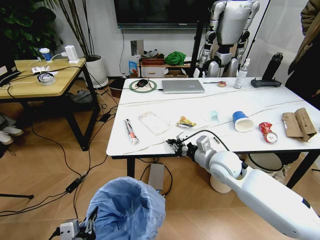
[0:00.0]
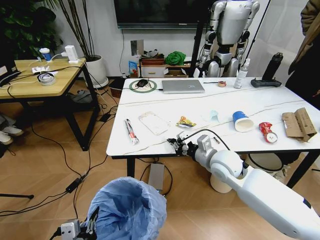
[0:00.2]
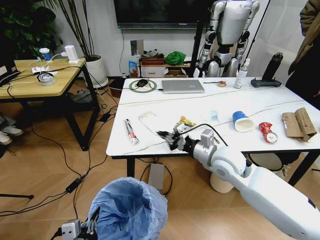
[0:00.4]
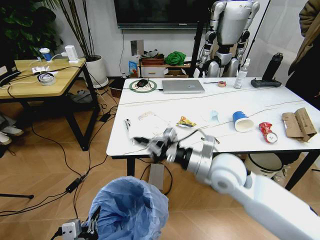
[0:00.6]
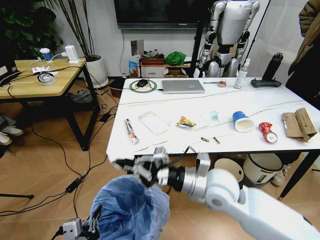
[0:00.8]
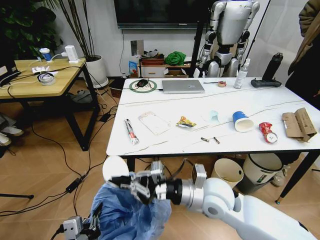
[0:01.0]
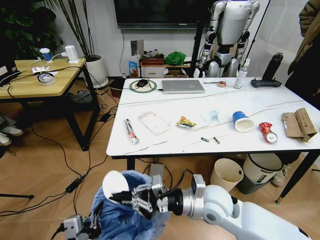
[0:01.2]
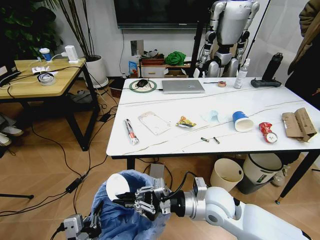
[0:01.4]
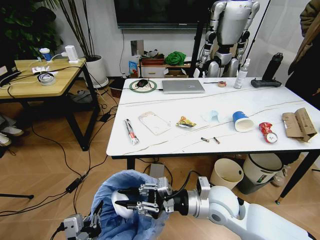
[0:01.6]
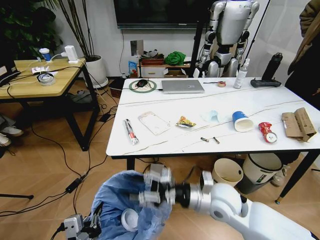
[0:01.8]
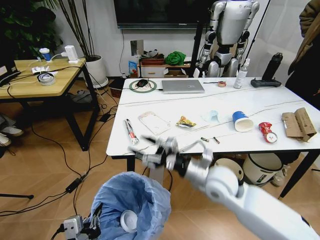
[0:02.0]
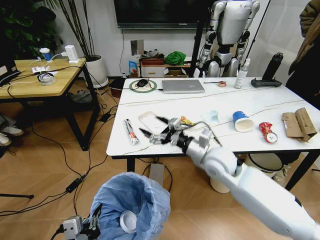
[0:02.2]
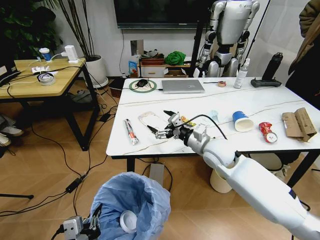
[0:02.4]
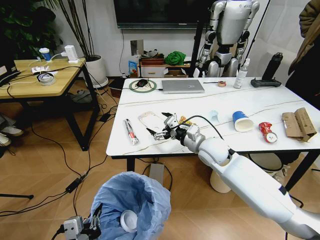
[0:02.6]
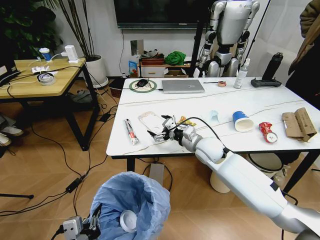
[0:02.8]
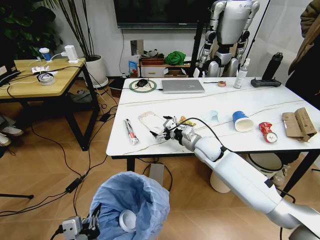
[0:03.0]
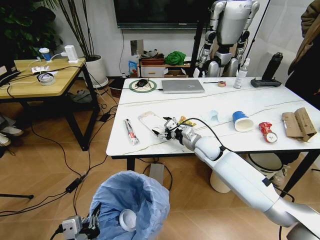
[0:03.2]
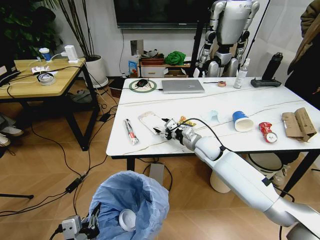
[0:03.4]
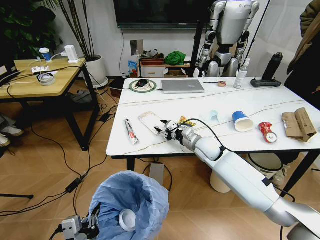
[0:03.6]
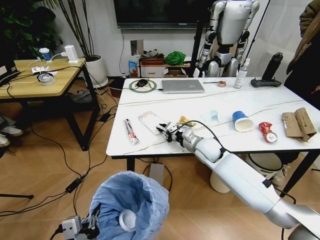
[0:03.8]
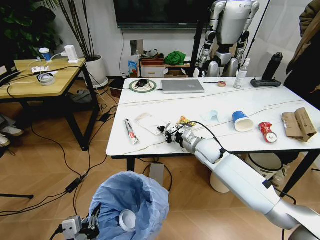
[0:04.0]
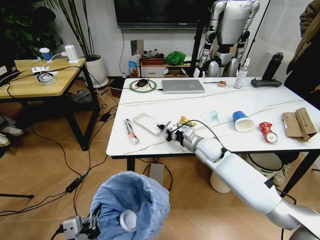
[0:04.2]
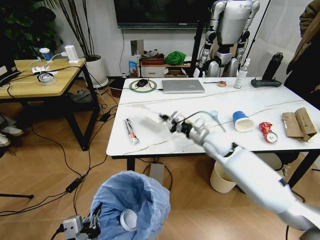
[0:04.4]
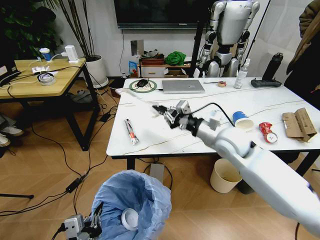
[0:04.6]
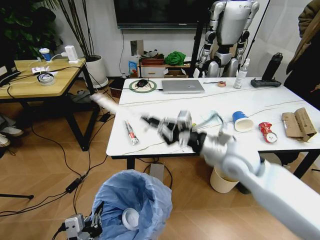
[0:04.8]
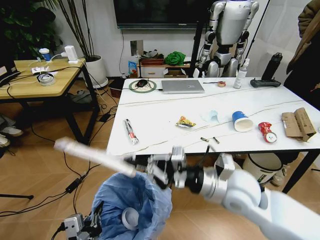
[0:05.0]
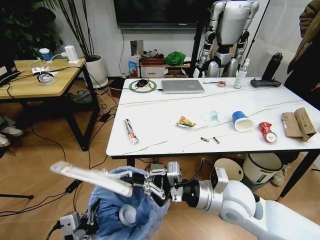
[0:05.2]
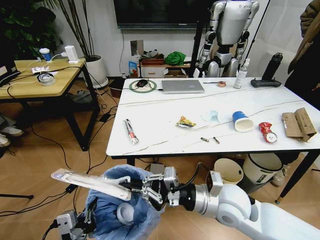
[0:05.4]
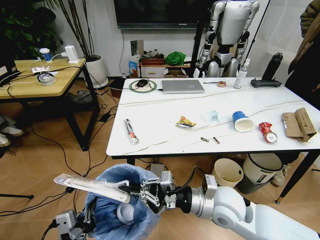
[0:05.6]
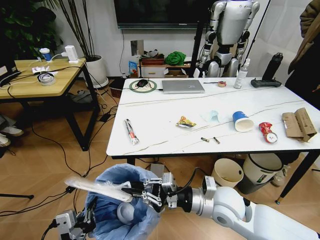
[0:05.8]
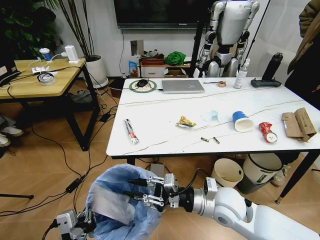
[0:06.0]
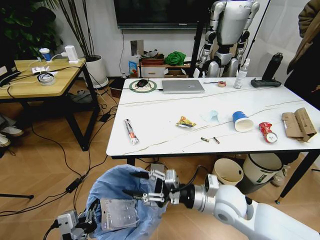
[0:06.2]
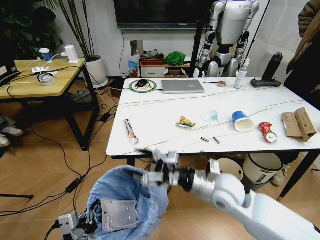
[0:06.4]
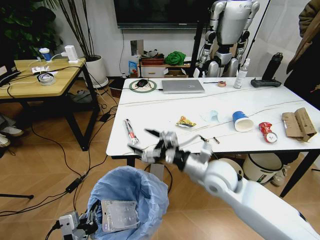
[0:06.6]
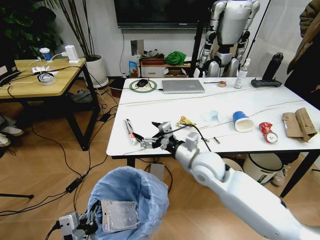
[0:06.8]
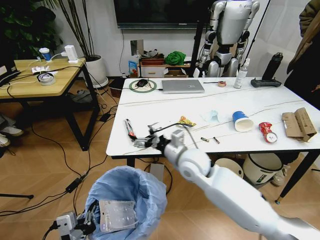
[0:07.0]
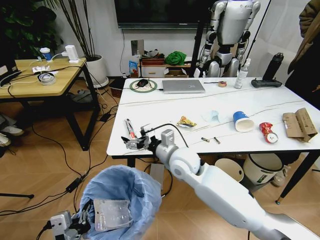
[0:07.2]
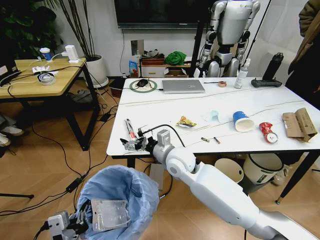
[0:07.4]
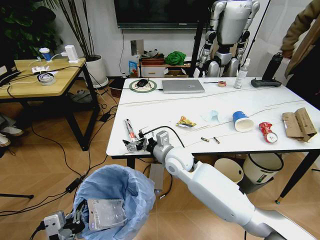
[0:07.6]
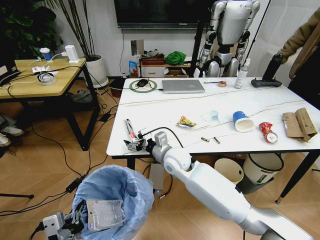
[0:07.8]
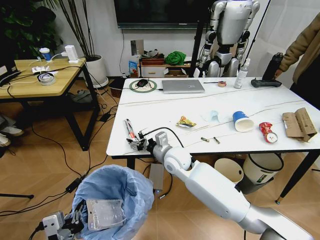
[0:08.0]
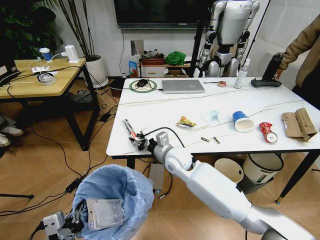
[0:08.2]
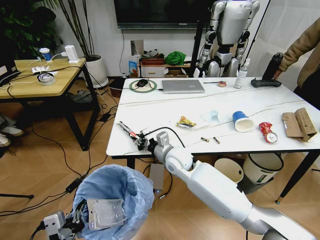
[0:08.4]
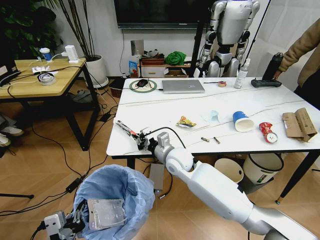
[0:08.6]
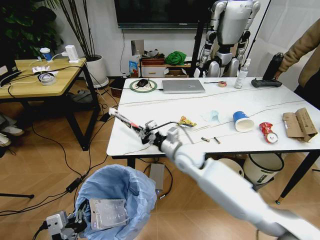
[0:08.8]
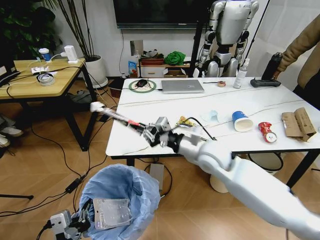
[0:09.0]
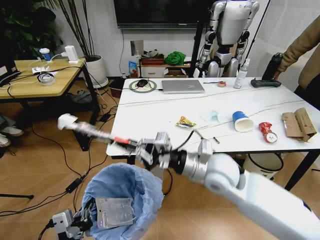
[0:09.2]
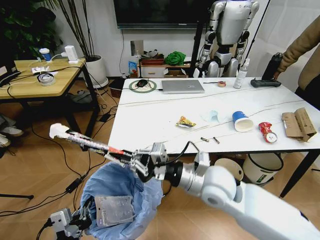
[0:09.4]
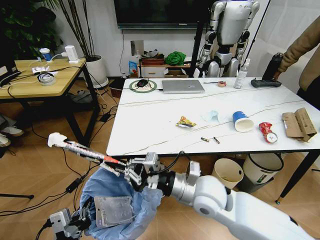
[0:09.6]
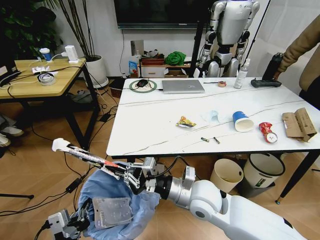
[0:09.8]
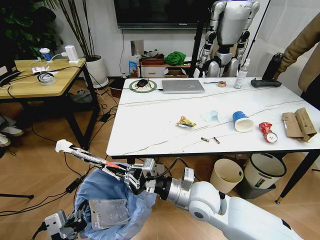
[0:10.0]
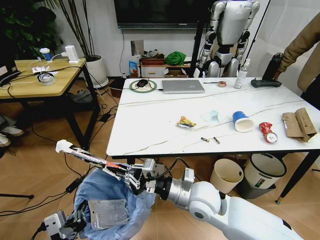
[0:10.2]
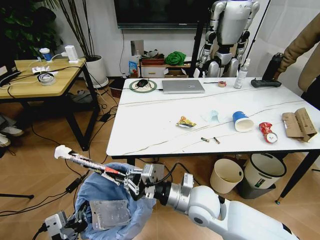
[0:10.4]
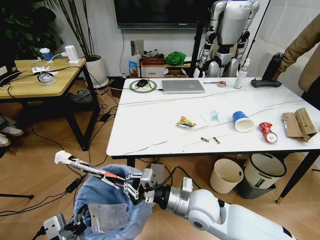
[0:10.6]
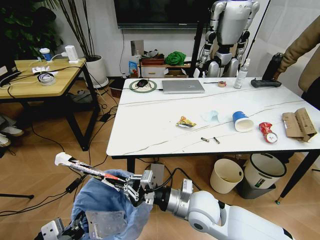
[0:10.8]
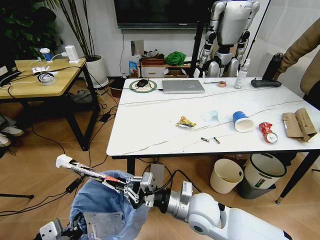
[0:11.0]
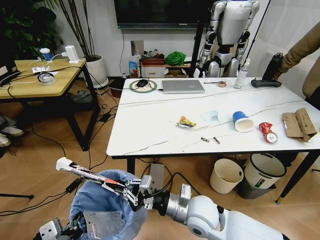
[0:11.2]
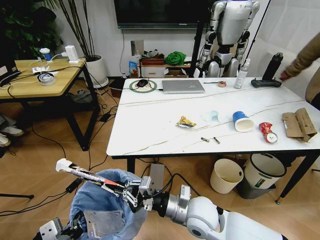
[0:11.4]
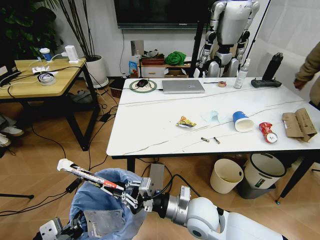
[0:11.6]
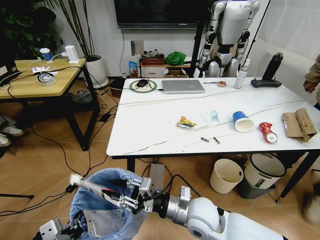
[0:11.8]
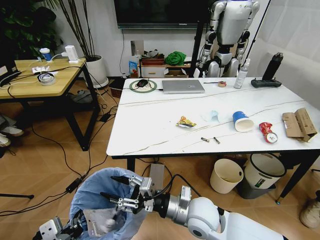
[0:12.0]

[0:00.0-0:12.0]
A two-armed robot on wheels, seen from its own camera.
Task of the whole recording: Pick up the trash bin and place the trash from the table into it.
0:00.0 to 0:01.6: The right gripper travels backward by about 10 cm.
0:01.6 to 0:03.0: The right gripper travels forward by some 20 cm, and opens its fingers.
0:03.0 to 0:04.4: The right gripper moves approximately 5 cm, and closes up.
0:04.4 to 0:06.0: The right gripper travels backward by approximately 20 cm.
0:06.0 to 0:07.6: The right gripper is displaced forward and to the left by about 20 cm, and opens.
0:07.6 to 0:09.0: The right gripper is displaced to the right and upward by roughly 10 cm, and closes up.
0:09.0 to 0:10.4: The right gripper heads backward and downward, covering approximately 15 cm.
0:10.4 to 0:12.0: The right gripper opens its fingers.

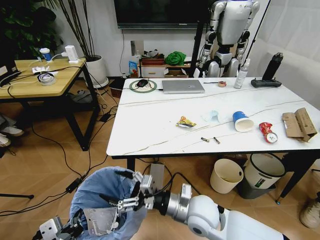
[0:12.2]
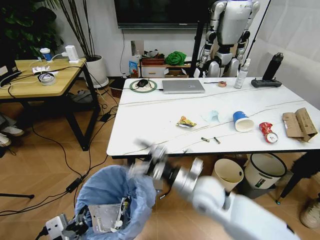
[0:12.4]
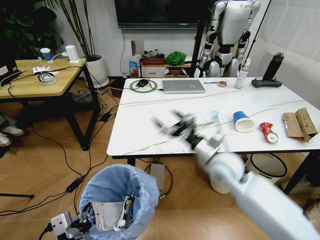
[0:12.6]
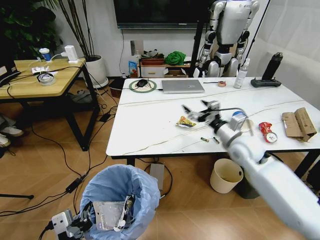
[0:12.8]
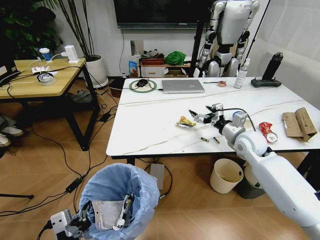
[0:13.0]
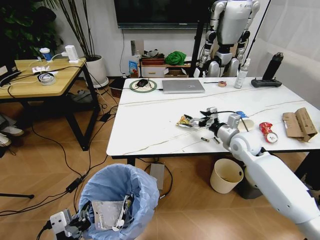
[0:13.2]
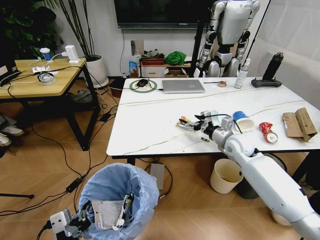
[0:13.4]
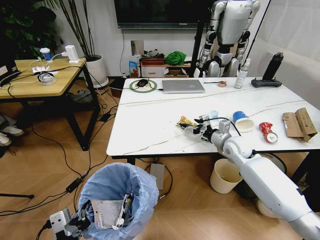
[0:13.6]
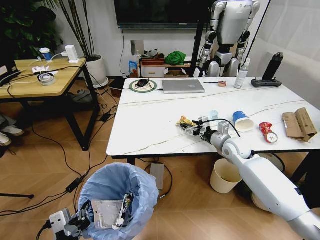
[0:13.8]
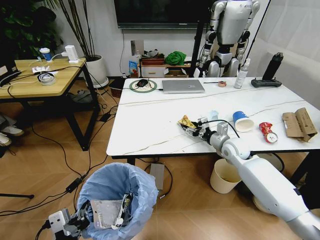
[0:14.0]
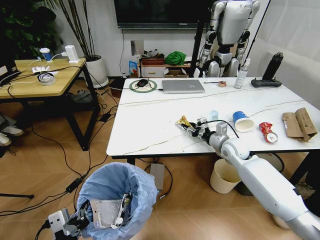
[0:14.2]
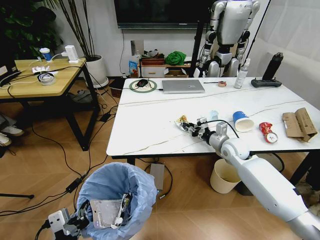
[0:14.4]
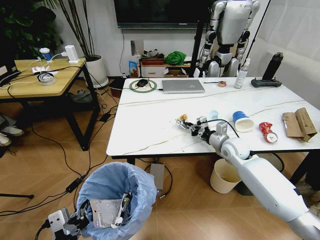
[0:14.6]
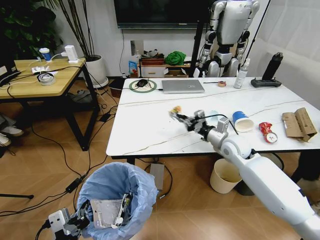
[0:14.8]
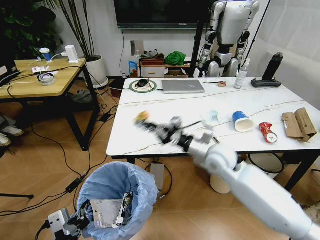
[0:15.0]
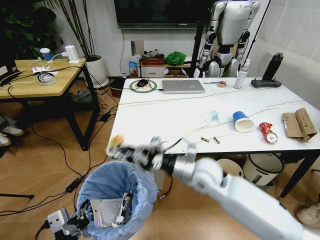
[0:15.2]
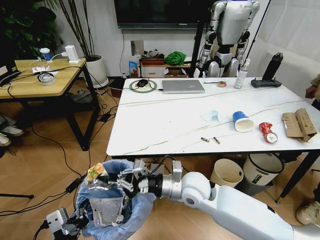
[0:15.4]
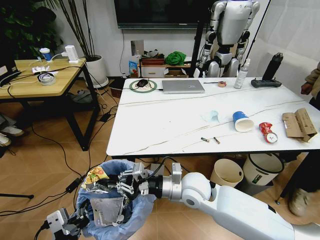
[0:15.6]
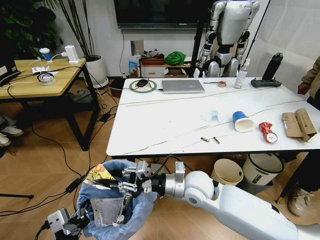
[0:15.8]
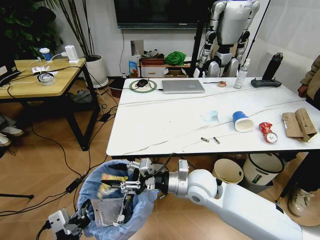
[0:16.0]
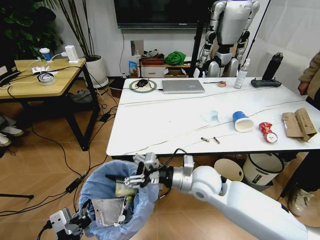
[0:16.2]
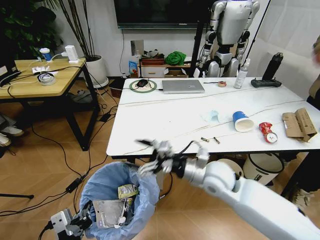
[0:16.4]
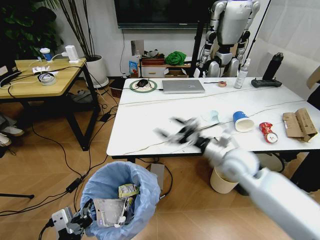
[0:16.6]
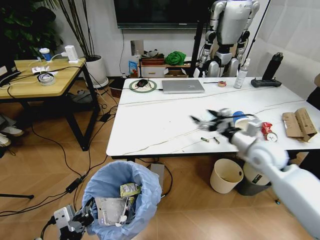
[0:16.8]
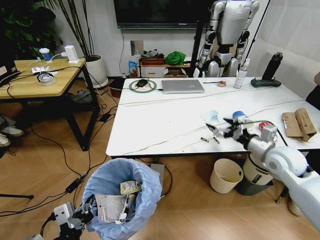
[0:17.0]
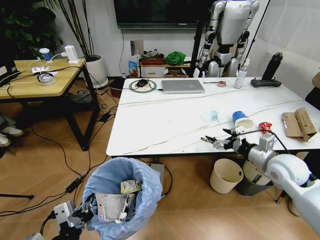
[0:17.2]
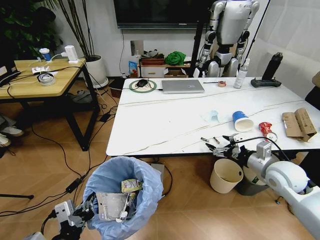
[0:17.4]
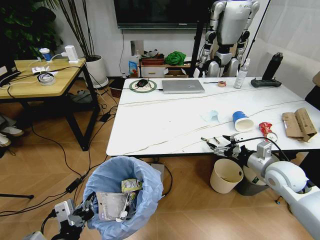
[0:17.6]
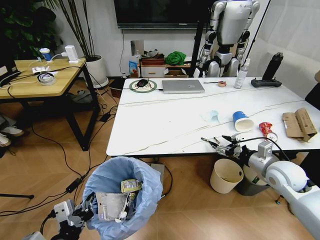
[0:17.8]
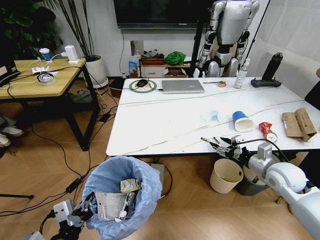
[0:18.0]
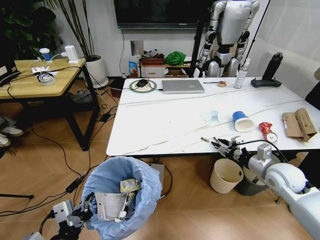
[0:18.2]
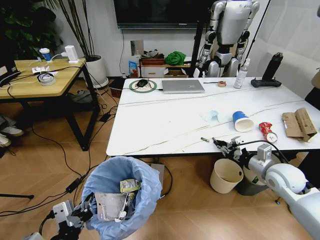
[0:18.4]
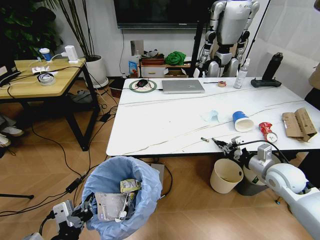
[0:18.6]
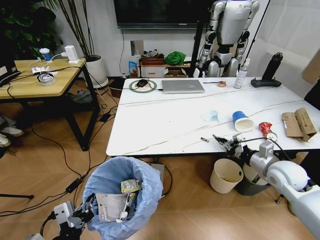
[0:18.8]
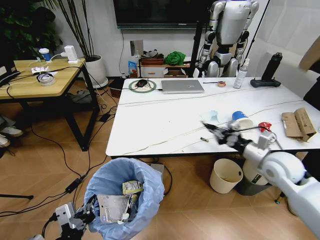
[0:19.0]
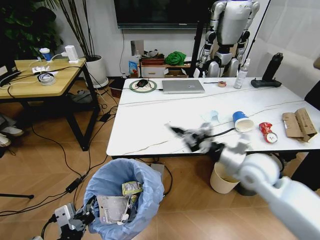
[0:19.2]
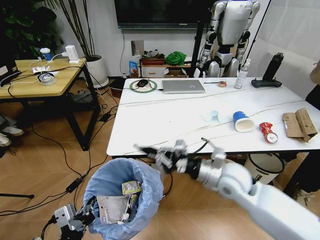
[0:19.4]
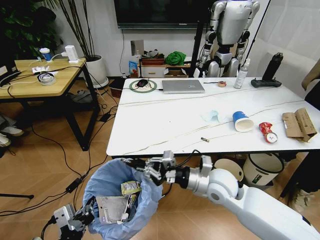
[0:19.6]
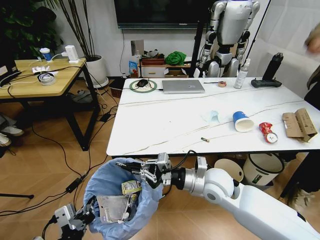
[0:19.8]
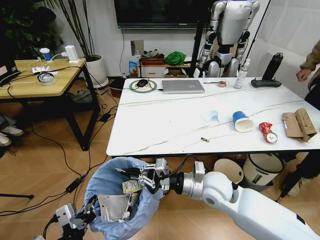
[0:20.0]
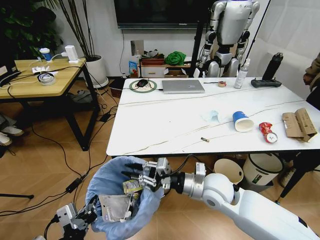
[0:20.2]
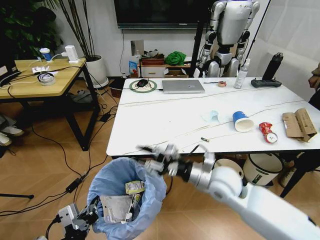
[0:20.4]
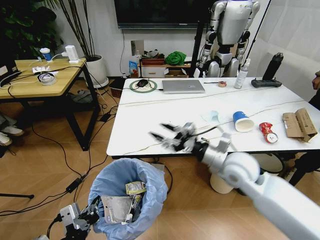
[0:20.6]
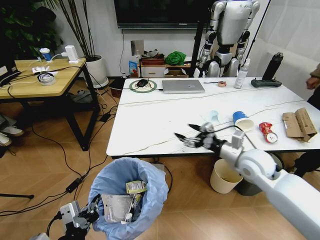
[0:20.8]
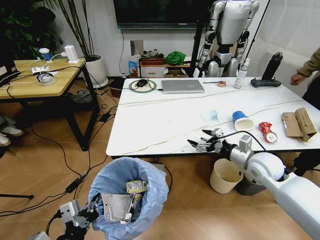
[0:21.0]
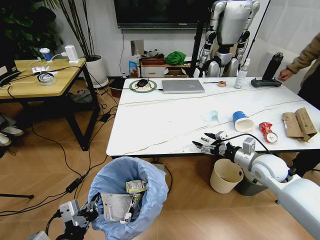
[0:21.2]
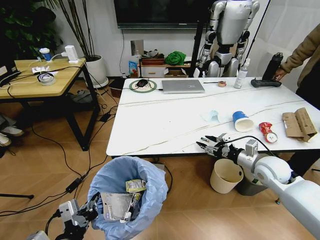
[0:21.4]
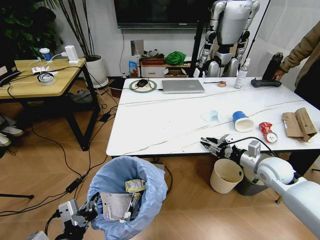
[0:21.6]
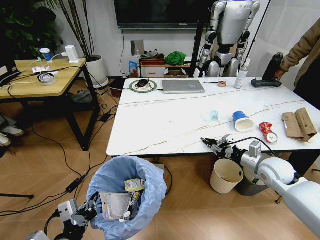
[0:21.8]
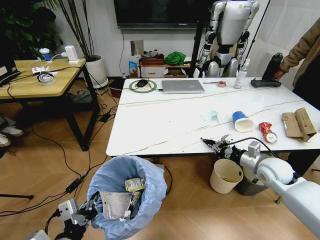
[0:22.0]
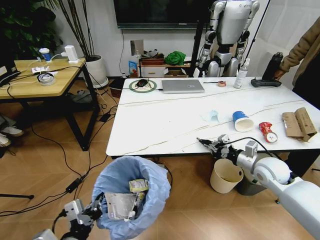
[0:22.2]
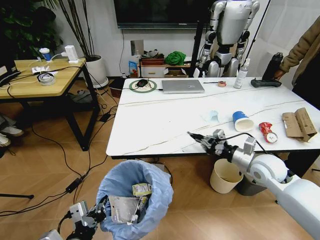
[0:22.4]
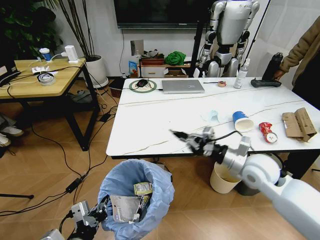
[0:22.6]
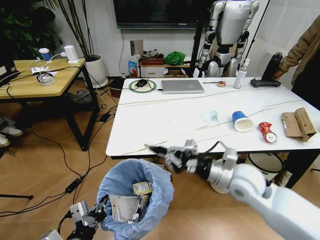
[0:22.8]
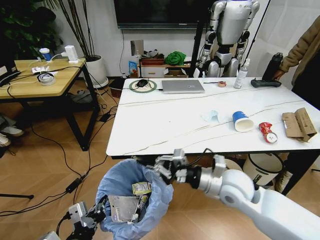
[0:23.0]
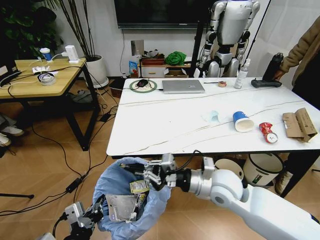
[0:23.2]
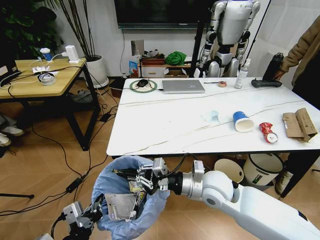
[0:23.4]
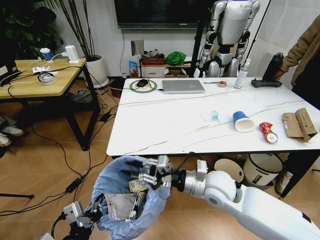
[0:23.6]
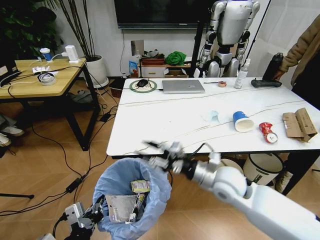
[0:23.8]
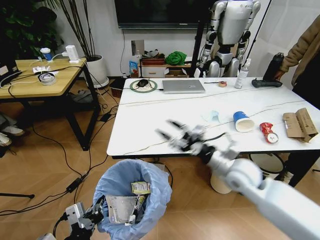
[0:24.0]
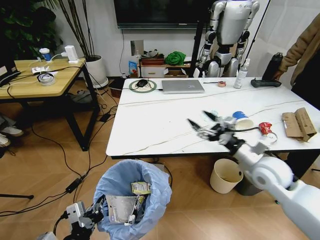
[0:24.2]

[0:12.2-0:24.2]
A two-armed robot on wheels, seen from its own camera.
Task of the whole recording: Pick up the trash bin and place the trash from the table into it.
0:12.2 to 0:13.8: The right gripper heads forward and to the right, covering approximately 30 cm.
0:13.8 to 0:15.2: The right gripper goes roughly 20 cm to the left and backward, and closes.
0:15.2 to 0:16.6: The right gripper heads to the right, covering some 10 cm, and opens.
0:16.6 to 0:18.2: The right gripper moves to the right, about 20 cm, and closes up.
0:18.2 to 0:19.8: The right gripper travels to the left by some 25 cm, and closes up.
0:19.8 to 0:21.2: The right gripper is displaced to the right by about 20 cm, and opens.
0:21.2 to 0:22.6: The right gripper shifts some 10 cm to the left, and closes its fingers.
0:22.6 to 0:24.2: The right gripper travels to the left and back again, roughly 10 cm each way, and opens.
